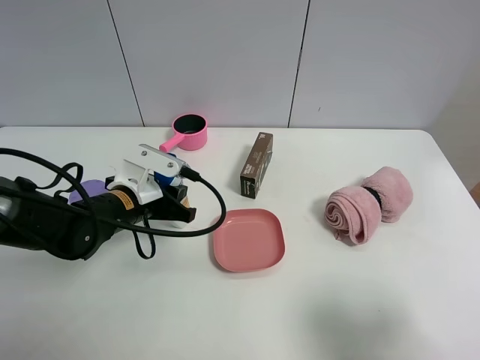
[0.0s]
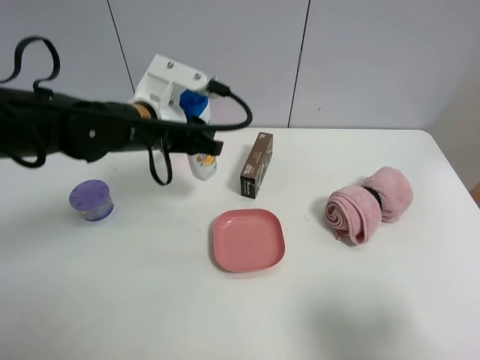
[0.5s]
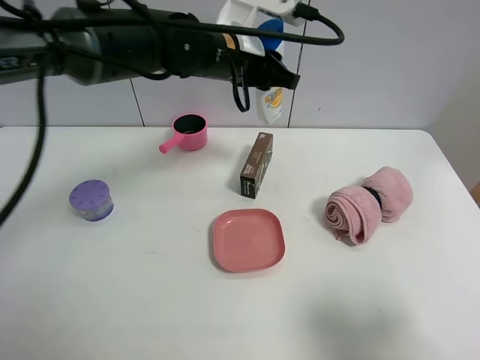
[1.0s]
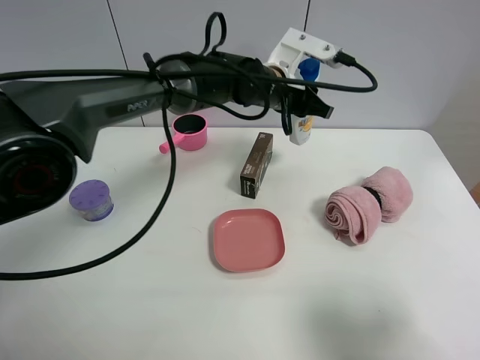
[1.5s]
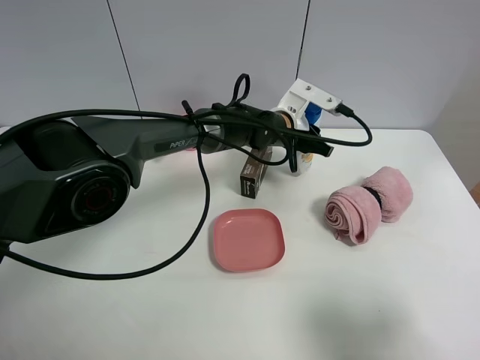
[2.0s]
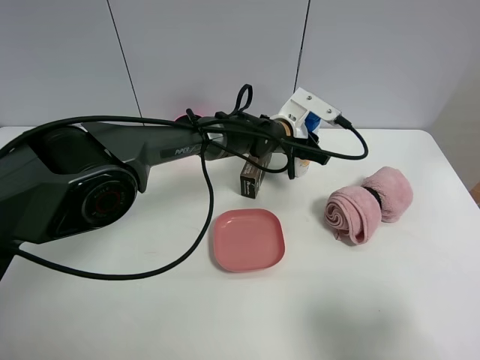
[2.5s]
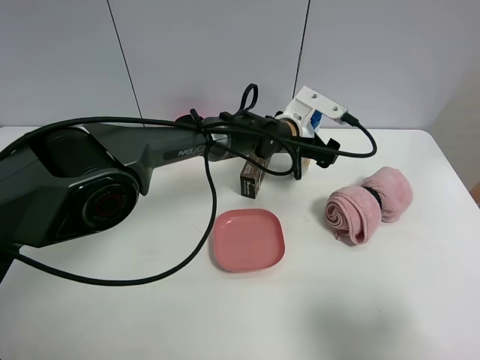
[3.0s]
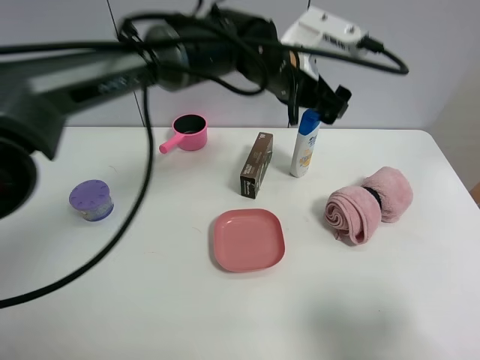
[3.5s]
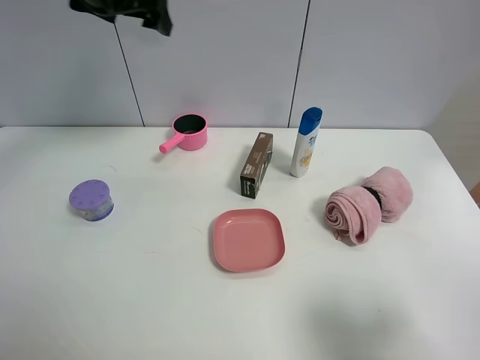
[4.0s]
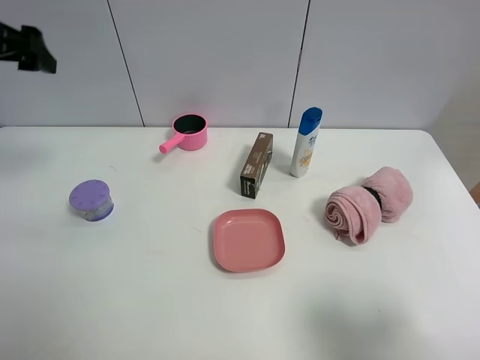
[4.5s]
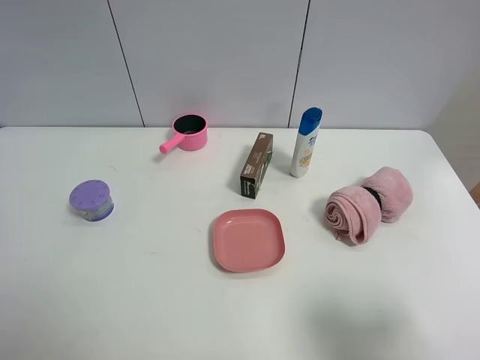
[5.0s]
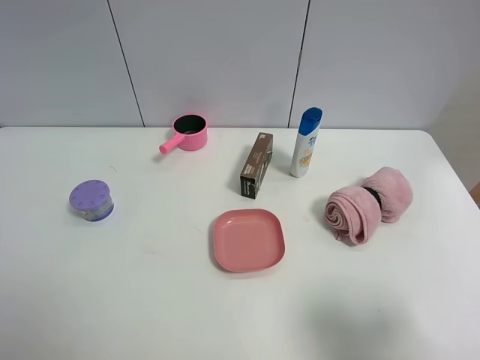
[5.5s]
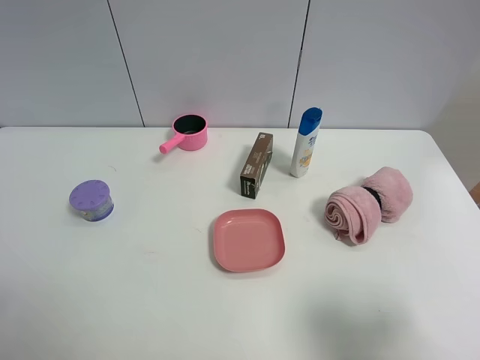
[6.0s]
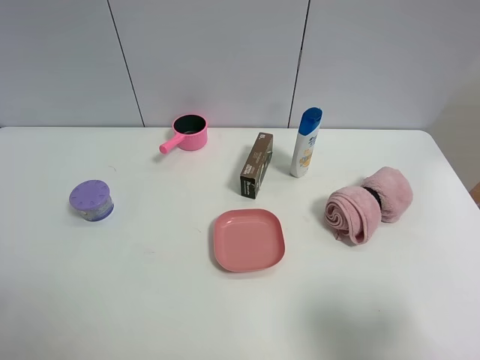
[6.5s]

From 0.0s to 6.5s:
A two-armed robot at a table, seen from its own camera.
Task of the whole recording: the gripper move the object.
Step, from 0.0s to 3.0s: Place the shampoo on the table with the left gripper.
From 0.0s to 2.0s: The left gripper is displaced to the right and forward by about 30 cm.
From 2.0s to 4.5s: The left gripper moves to the left and upward, approximately 50 cm, and opens up.
From 4.5s to 6.5s: The left gripper travels backward by approximately 30 cm.

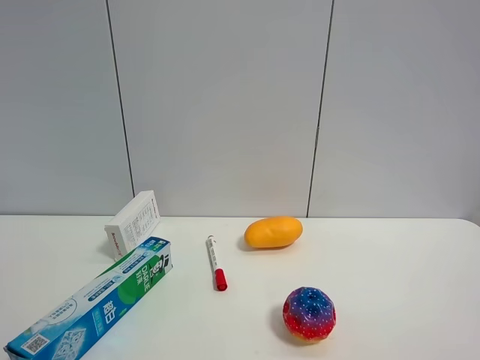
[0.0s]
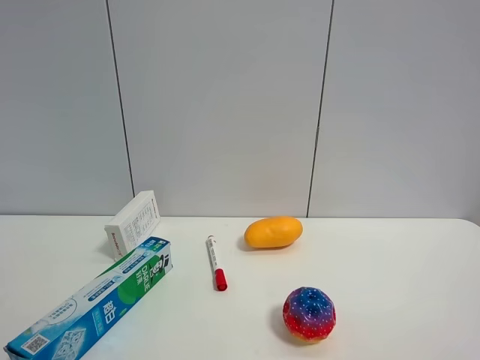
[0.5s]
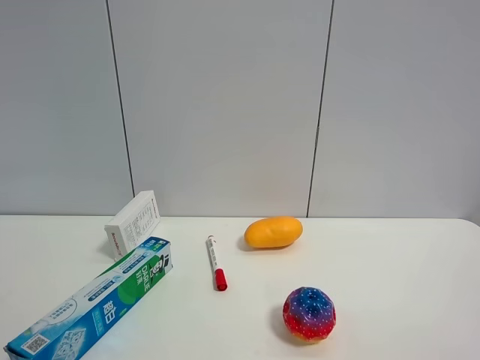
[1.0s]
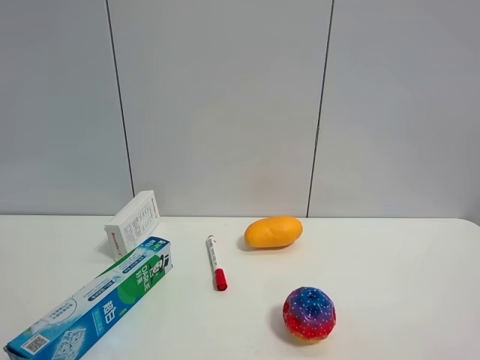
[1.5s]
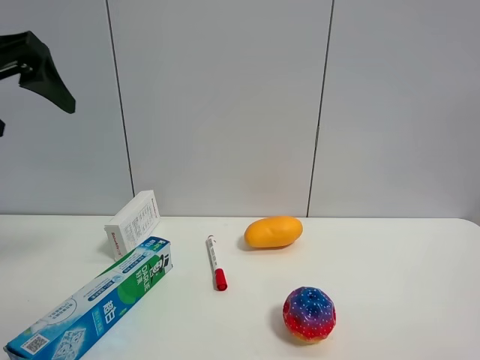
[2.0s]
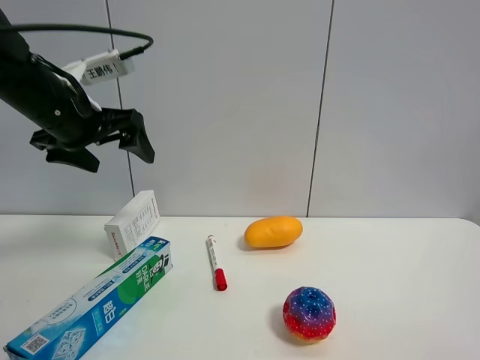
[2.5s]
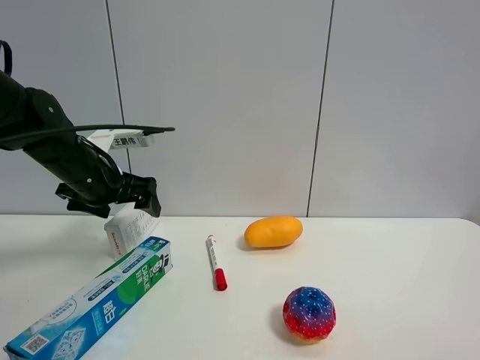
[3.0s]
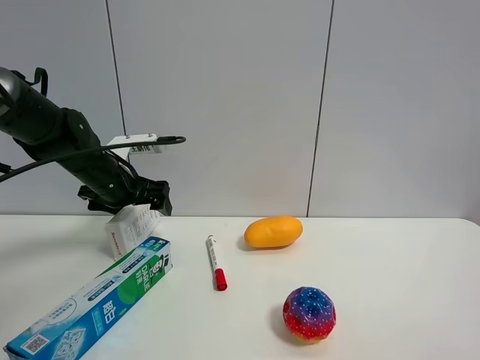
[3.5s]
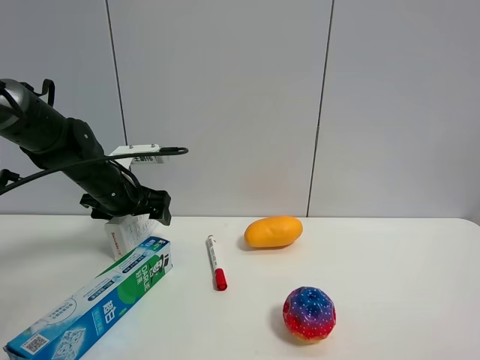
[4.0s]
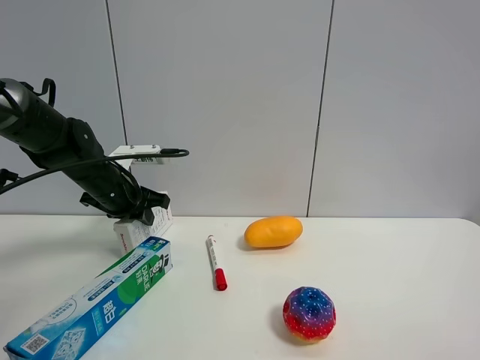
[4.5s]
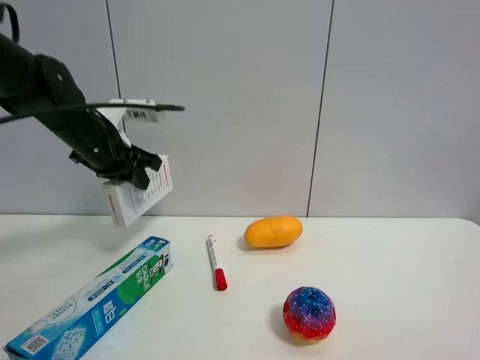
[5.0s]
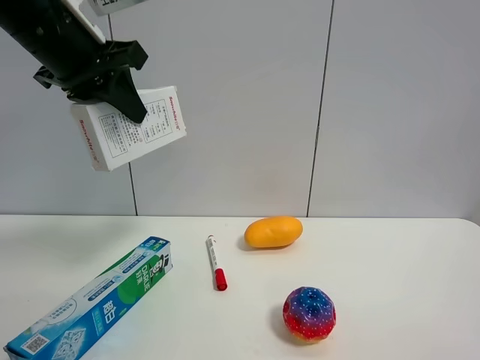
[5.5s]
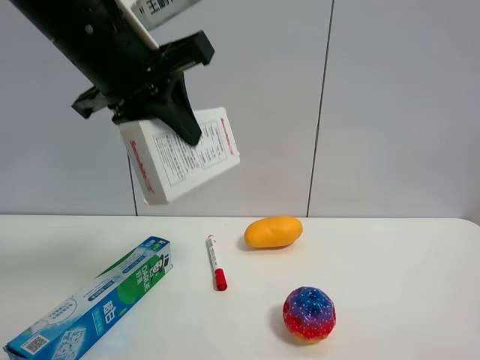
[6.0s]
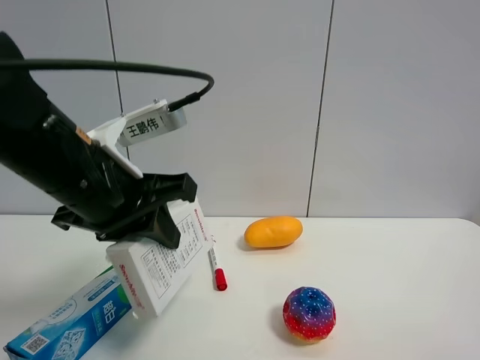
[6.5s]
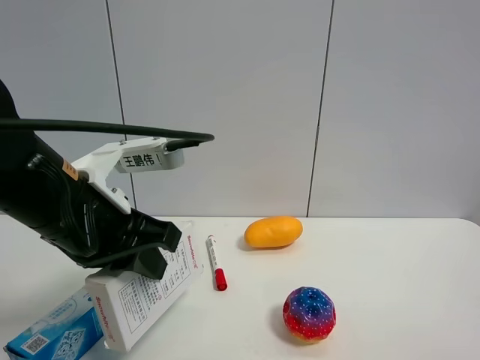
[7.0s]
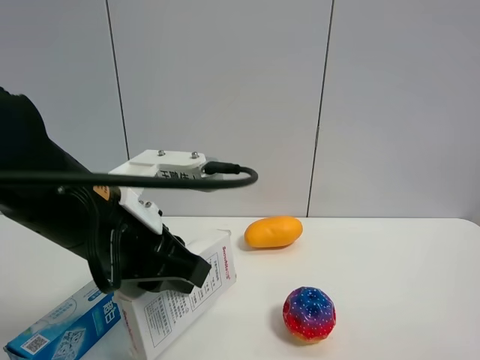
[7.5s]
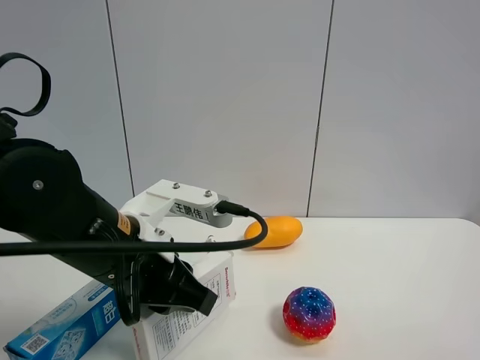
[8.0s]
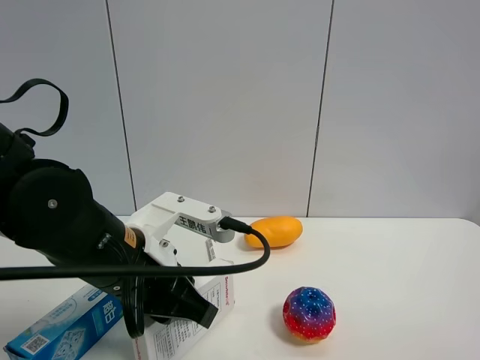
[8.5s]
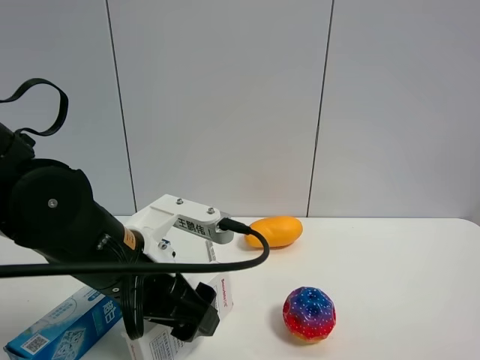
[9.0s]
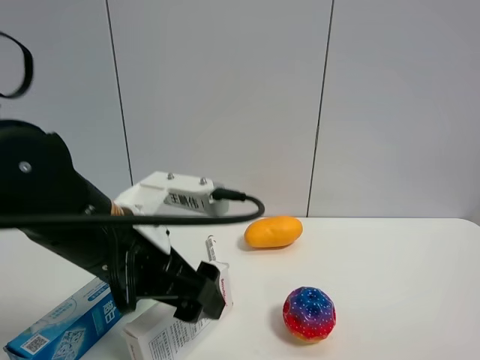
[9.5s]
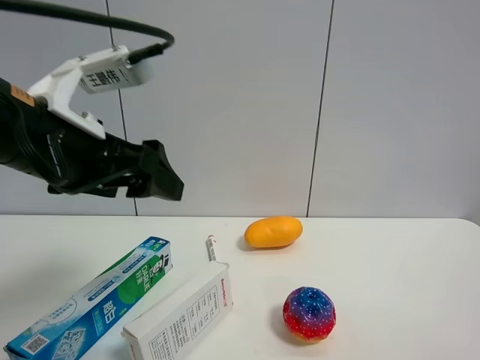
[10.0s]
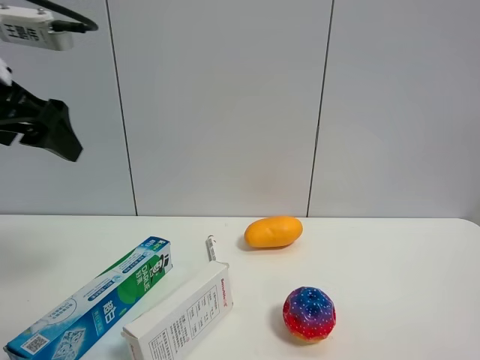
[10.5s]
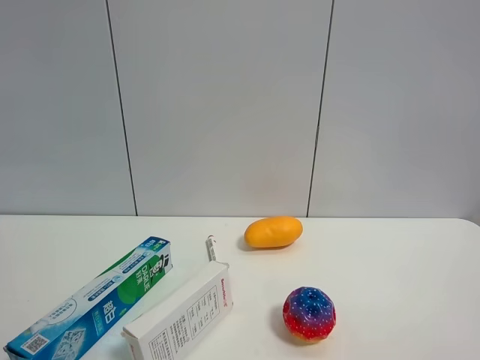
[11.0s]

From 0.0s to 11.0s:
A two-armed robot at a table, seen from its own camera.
Task of the whole recording: the gripper move the object.
Step, from 0.0s to 4.0s: Grasp the USB box with the left gripper.
Step, from 4.5s to 9.0s: Place the USB box on the table with the left gripper.
From 0.0s to 2.0s: The left gripper moves forward, about 30 cm.
From 2.0s to 3.5s: The left gripper heads downward and forward, covering approximately 25 cm.
From 3.5s to 5.5s: The left gripper heads upward and backward, covering some 25 cm, and closes.
From 5.5s to 7.5s: The left gripper heads downward, backward and to the right, covering roughly 20 cm.
From 7.5s to 9.0s: The left gripper opens.
From 9.0s to 11.0s: The left gripper shifts some 30 cm upward and to the left.

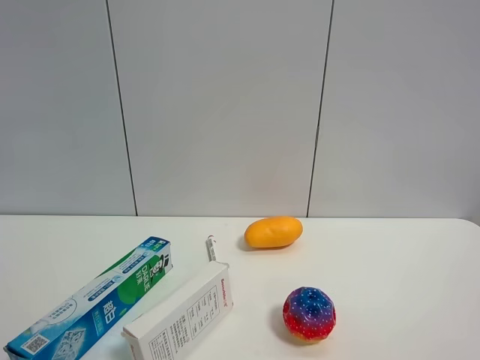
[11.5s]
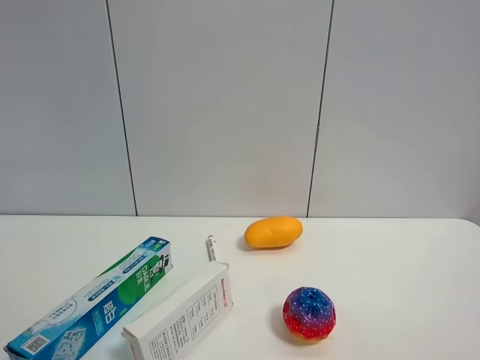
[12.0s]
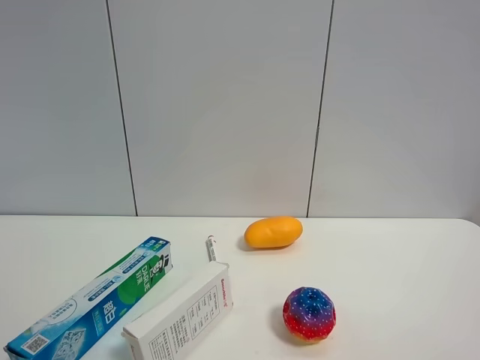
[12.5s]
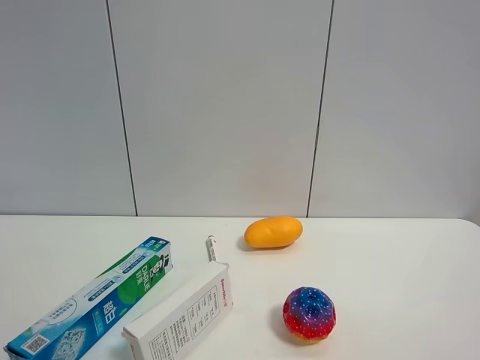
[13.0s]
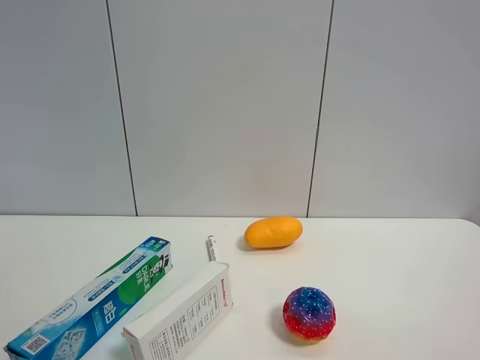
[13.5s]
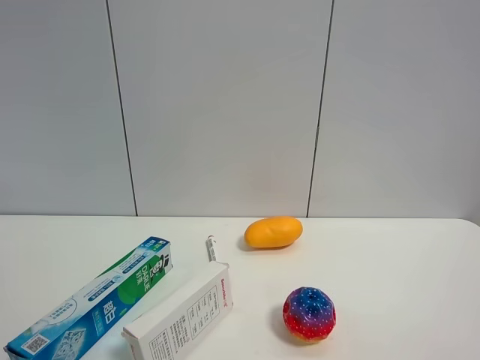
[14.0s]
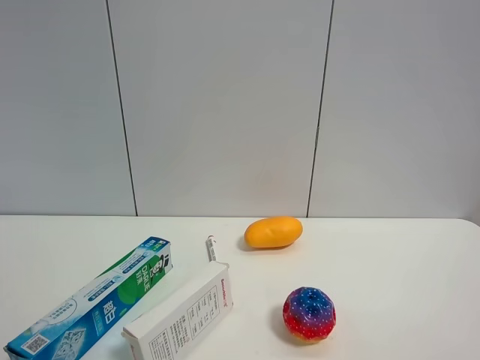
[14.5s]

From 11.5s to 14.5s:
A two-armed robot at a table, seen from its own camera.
Task of the whole recording: the gripper move the object.
From 13.0s to 14.5s: Neither gripper changes place.

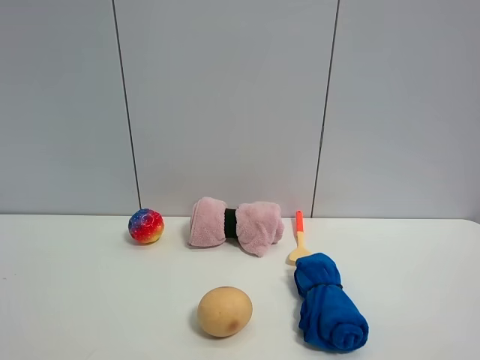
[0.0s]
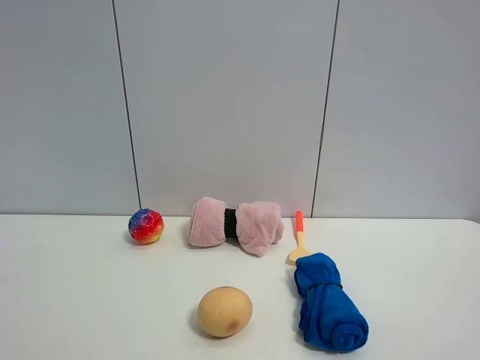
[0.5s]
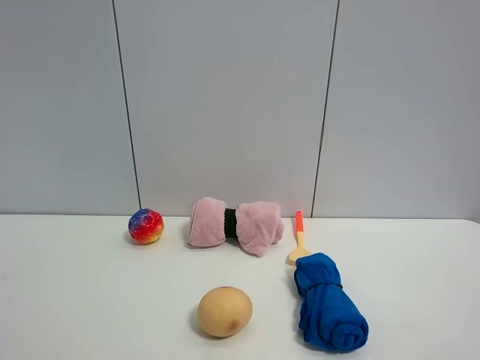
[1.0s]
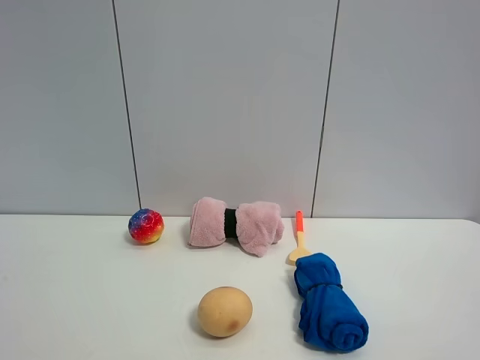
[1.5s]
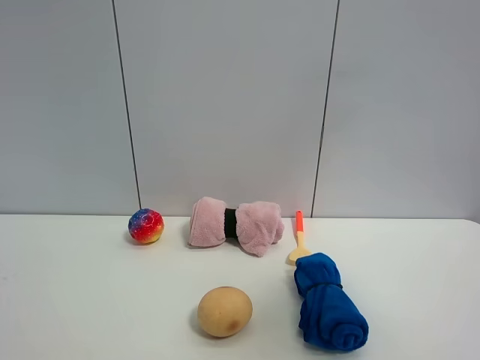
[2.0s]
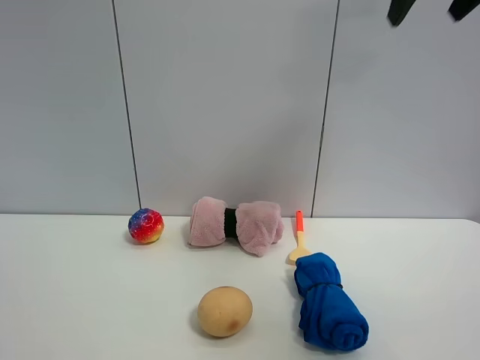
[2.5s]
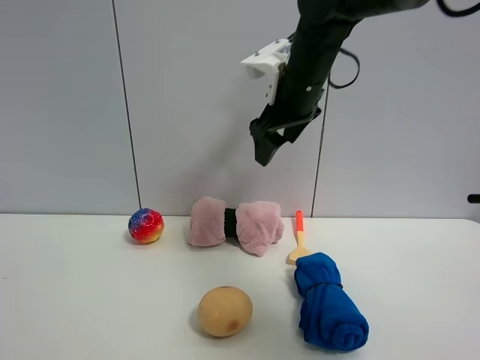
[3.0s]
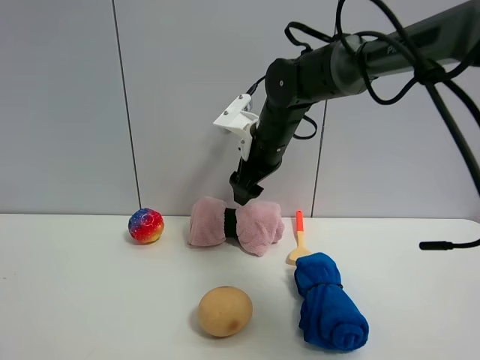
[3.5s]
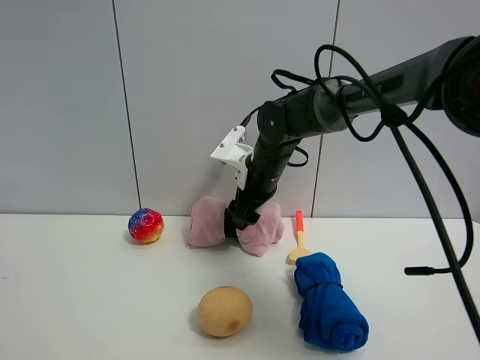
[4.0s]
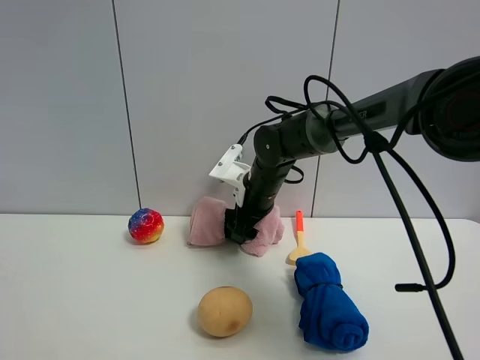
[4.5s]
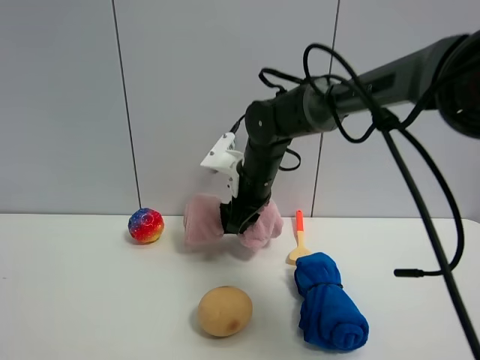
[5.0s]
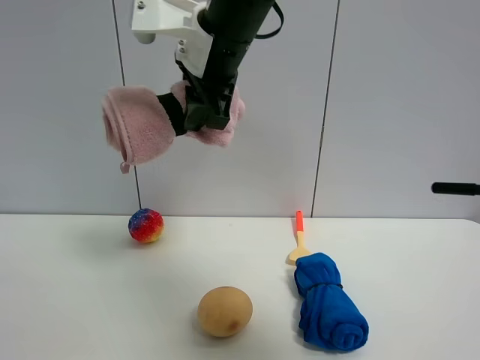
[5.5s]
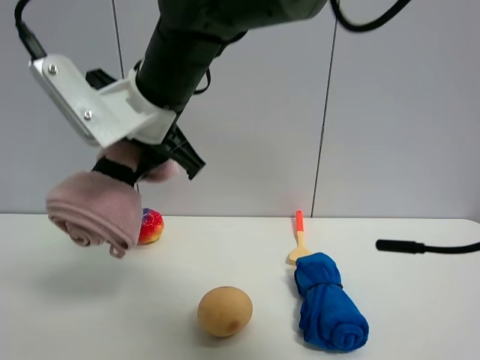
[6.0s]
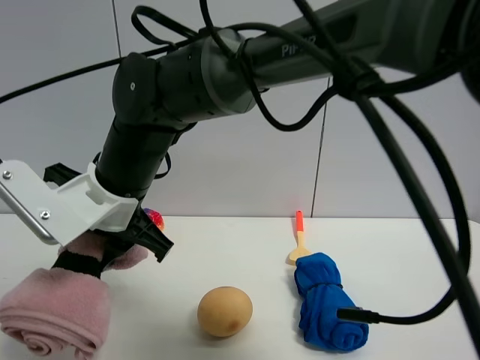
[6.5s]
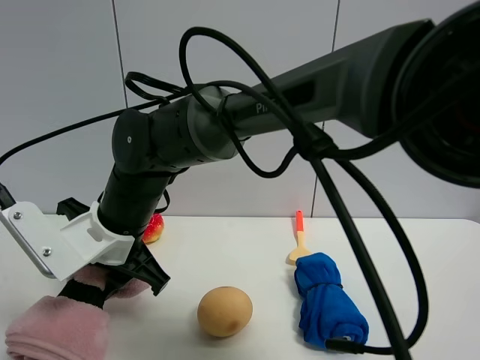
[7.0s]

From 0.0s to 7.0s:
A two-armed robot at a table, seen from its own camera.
Task of the whole recording: the gripper move the object.
Step, from 0.0s to 4.5s: Grasp the pink towel with the right gripper.
From 0.0s to 2.0s: The right gripper is displaced upward and forward by roughly 20 cm.
From 2.0s to 3.5s: The right gripper heads forward, downward and to the left, covering about 50 cm.
From 3.5s to 5.0s: The right gripper closes.
From 5.0s to 7.0s: The right gripper is displaced to the left and backward by some 20 cm, and moves some 20 cm upward and comes back.
